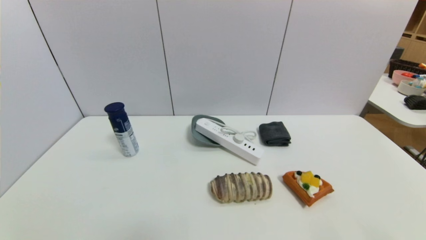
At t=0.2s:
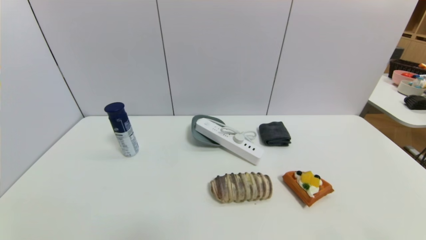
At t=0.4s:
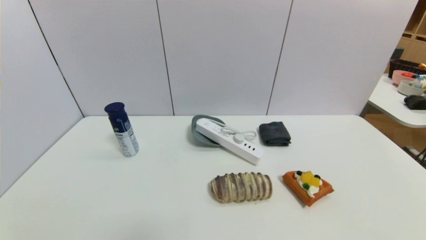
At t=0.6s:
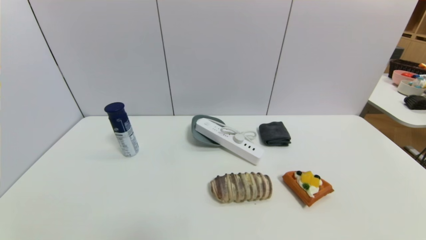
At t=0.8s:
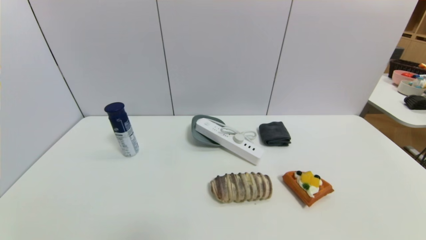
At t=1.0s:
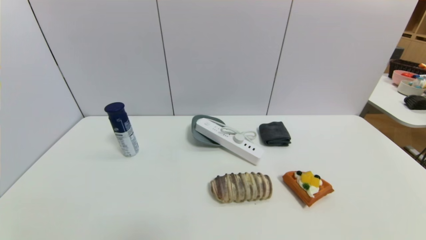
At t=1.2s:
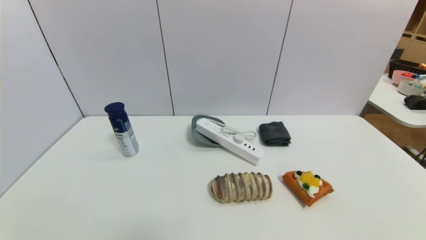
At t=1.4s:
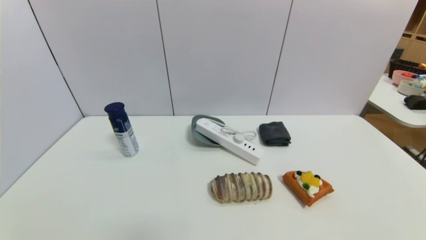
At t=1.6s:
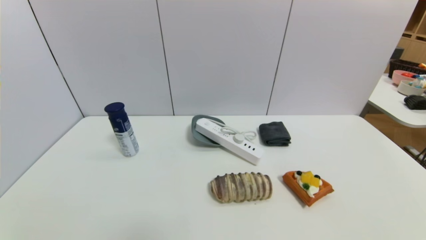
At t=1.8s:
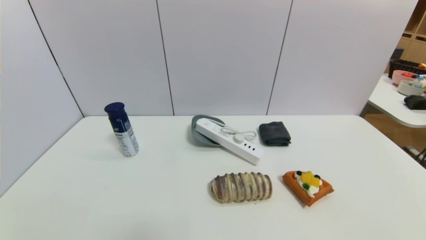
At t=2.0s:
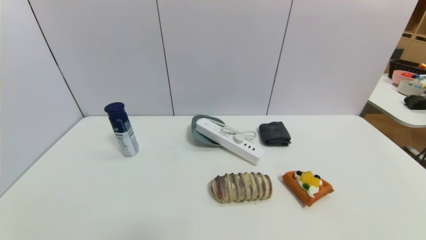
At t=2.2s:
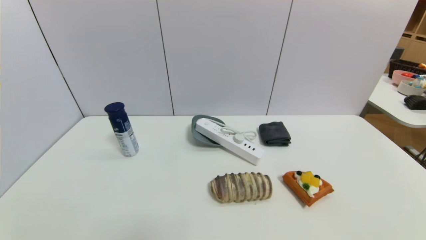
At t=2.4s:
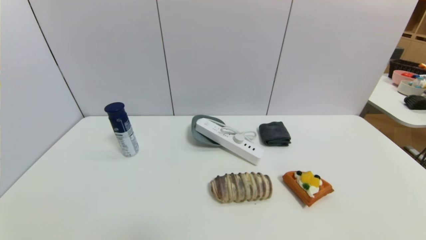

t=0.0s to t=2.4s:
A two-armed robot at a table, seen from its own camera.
Task of the whole recording: use a gripper to pick the target object and place on the dish.
t=1.2s to t=2.4s: Both grippers stay put.
